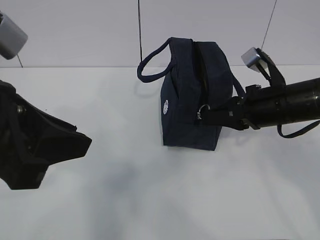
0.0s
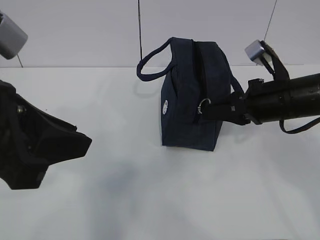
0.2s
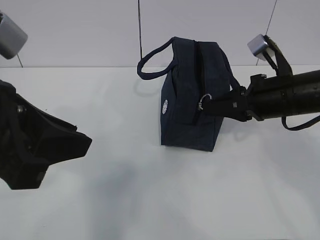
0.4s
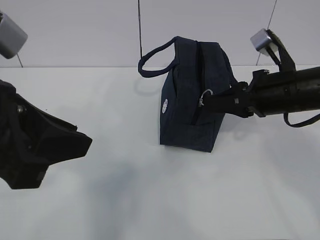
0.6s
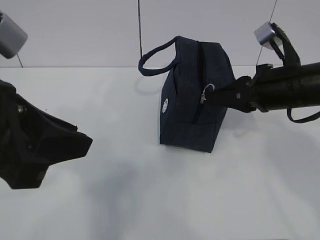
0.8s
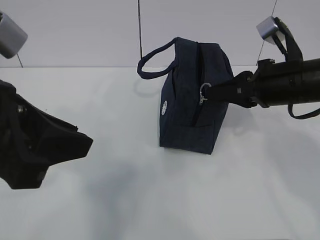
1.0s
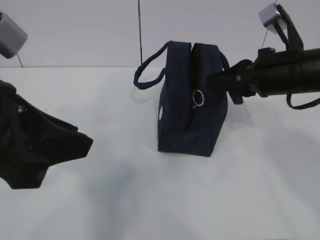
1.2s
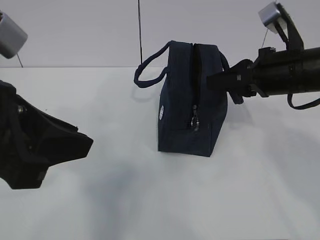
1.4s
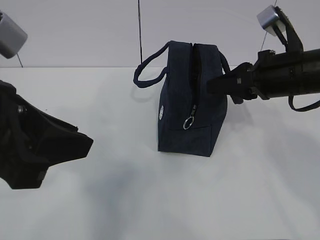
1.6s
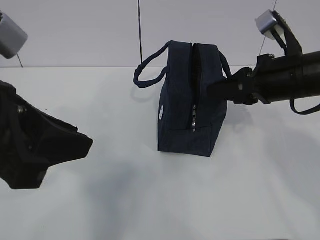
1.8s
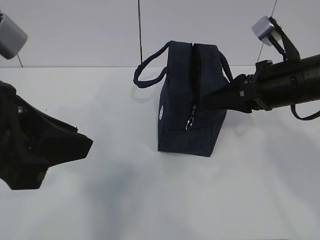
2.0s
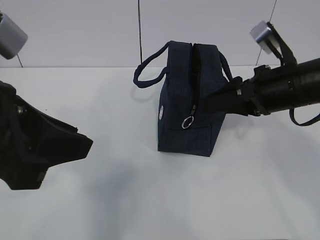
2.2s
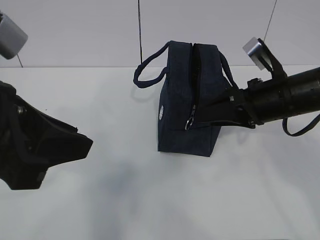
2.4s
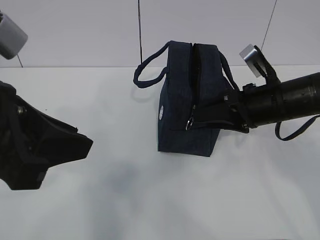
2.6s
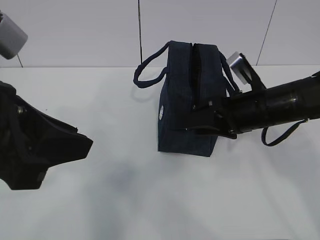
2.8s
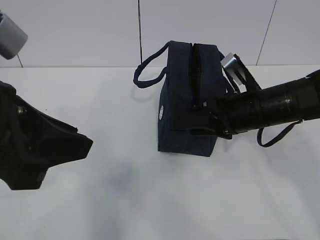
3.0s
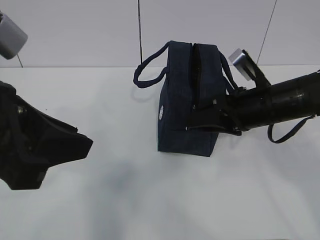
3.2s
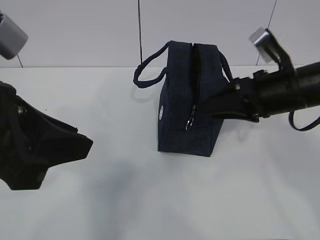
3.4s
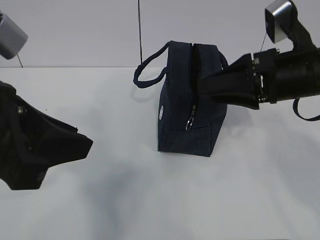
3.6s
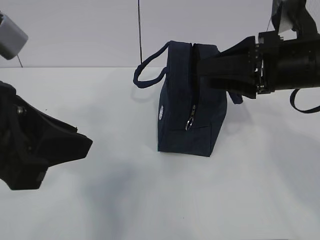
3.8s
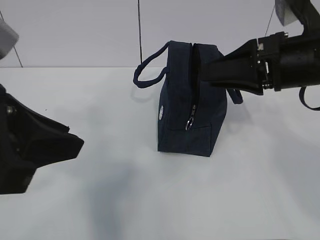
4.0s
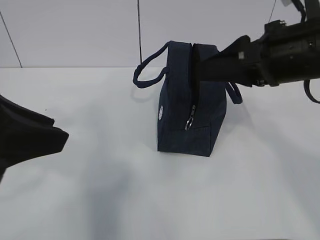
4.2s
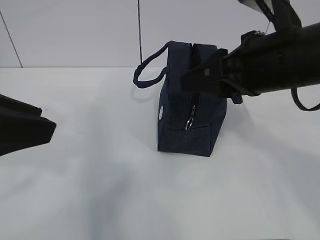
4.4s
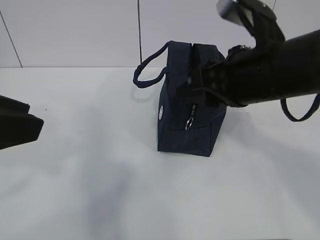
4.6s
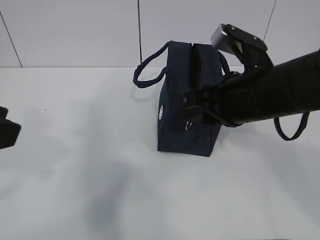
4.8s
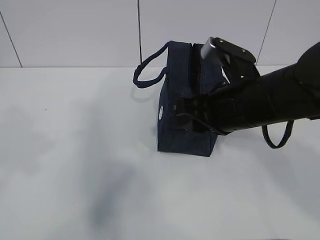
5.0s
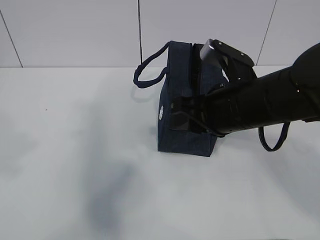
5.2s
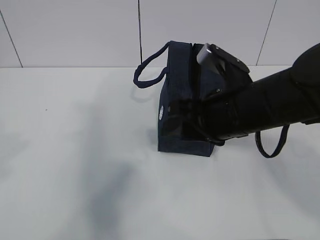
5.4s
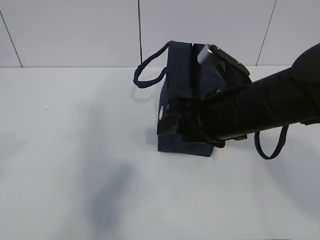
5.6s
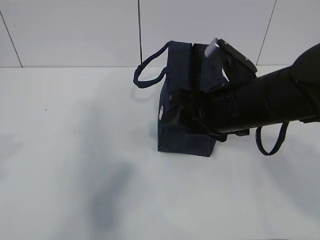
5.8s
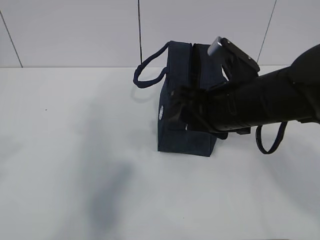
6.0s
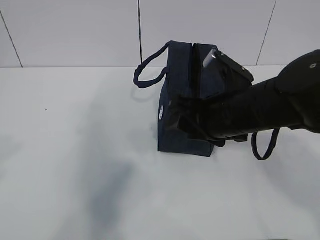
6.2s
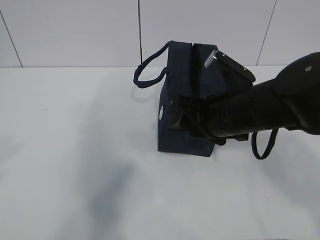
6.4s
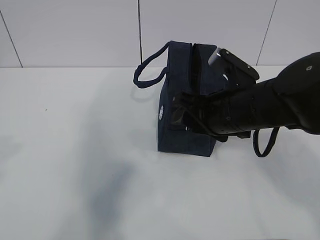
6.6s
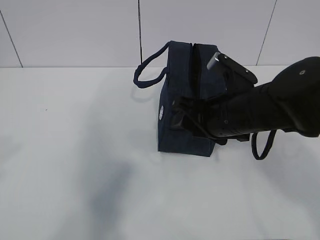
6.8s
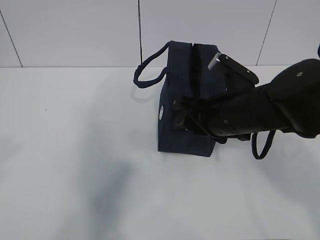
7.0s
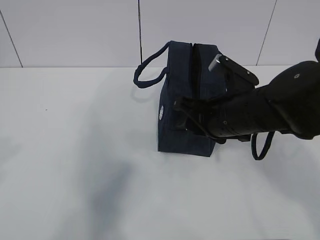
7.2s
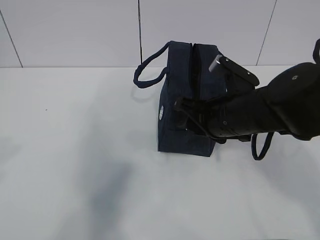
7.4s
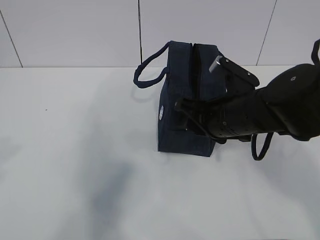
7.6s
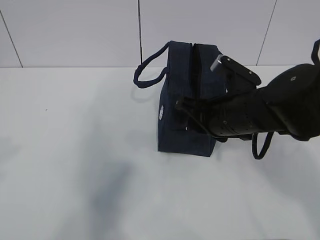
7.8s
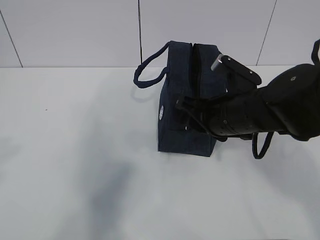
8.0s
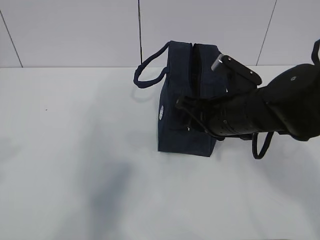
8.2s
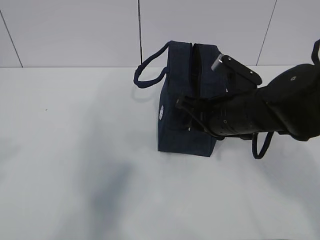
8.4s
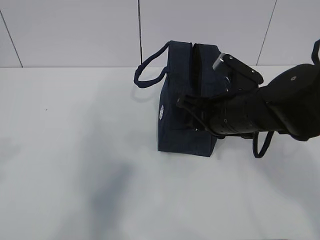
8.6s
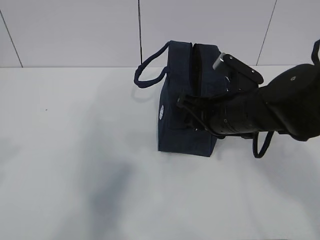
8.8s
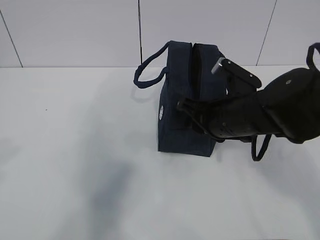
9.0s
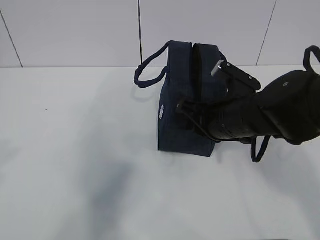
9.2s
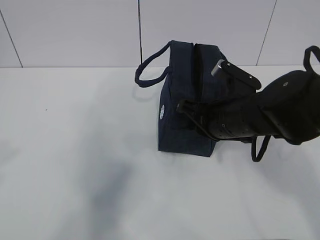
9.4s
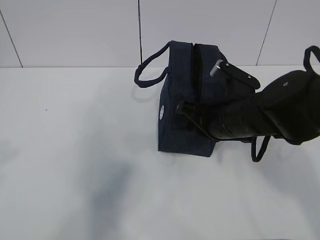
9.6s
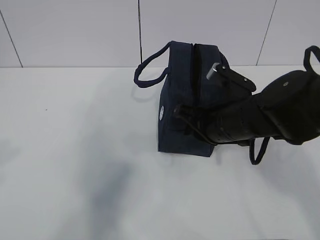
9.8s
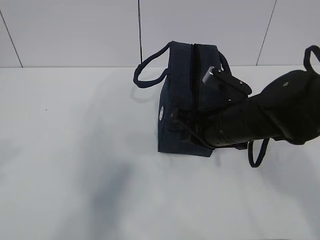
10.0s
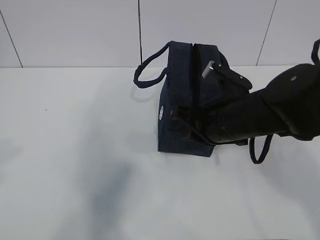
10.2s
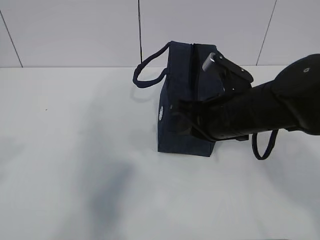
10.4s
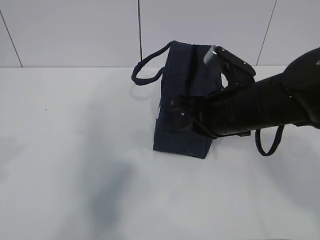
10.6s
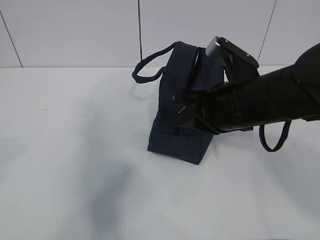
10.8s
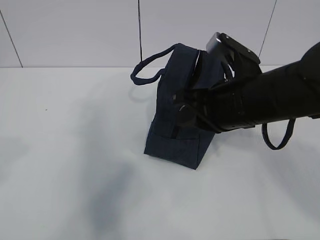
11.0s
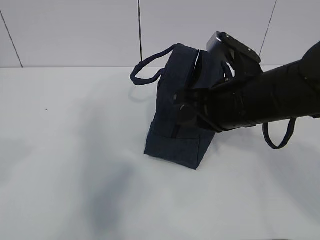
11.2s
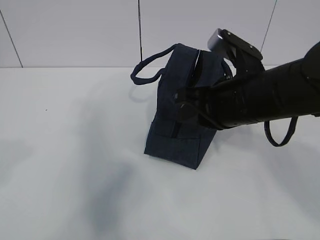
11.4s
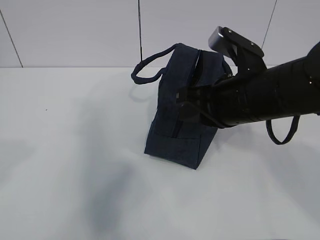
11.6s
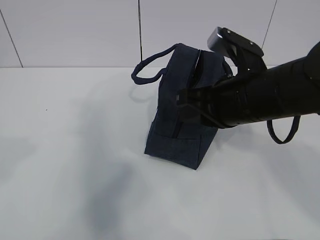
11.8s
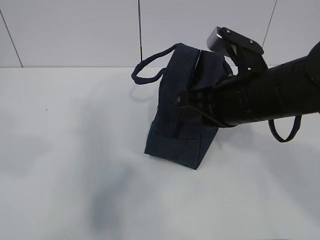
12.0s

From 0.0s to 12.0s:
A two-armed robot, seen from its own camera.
Step, from 0.0s to 8.0s: Grab the lunch bag with your left hand.
Step, from 8.2s to 12.0s: Pull the zipper with your right hand.
From 0.0s to 1.6s: The right gripper moves upward, some 5 cm.
From 1.6s to 3.0s: The right gripper shifts roughly 5 cm downward, and opens its fingers.
From 3.0s to 4.4s: The right gripper moves upward and backward, roughly 15 cm.
From 4.4s to 6.0s: The right gripper heads downward, covering some 5 cm, while the left gripper travels to the left and backward by approximately 10 cm.
From 6.0s to 7.6s: There are only small adjustments of the grippers.
From 7.6s to 9.0s: Neither gripper changes place.
From 9.0s to 10.4s: The right gripper closes up.
From 10.4s to 12.0s: The grippers make only small movements.

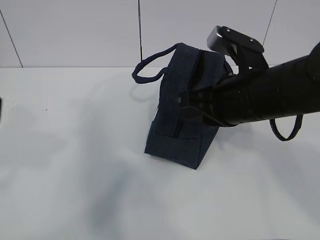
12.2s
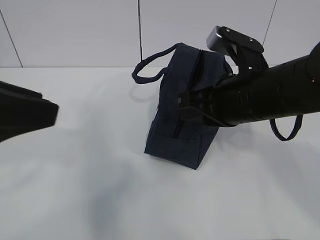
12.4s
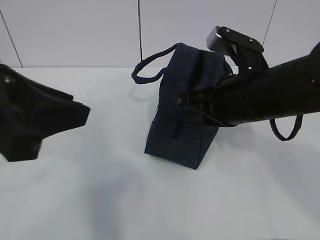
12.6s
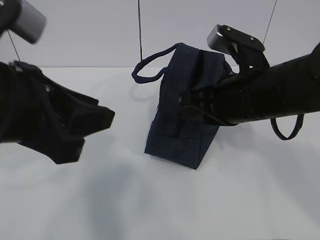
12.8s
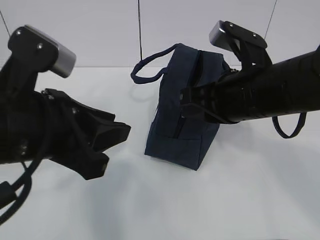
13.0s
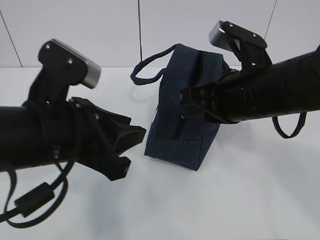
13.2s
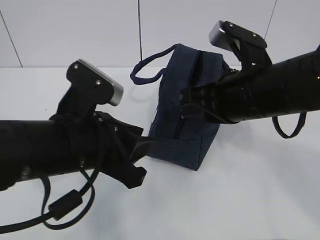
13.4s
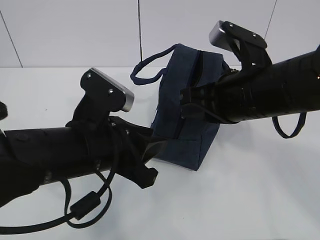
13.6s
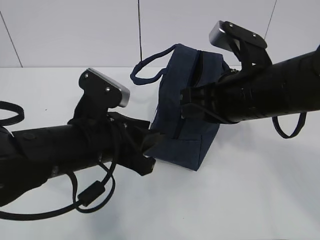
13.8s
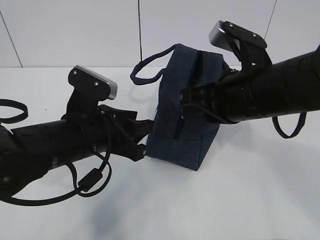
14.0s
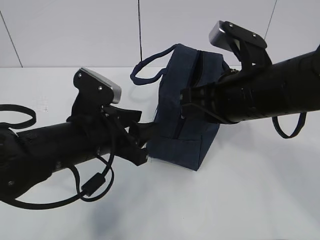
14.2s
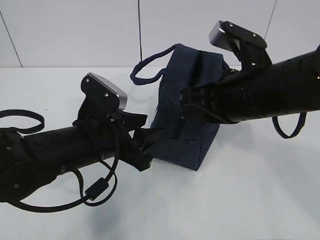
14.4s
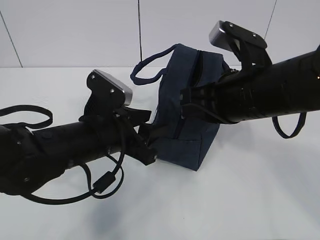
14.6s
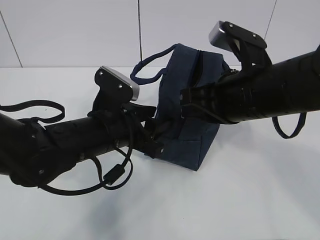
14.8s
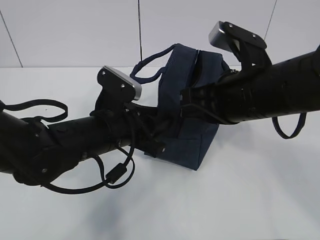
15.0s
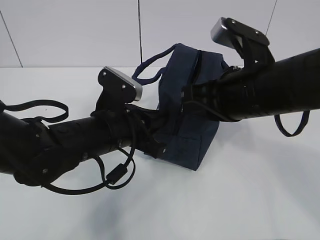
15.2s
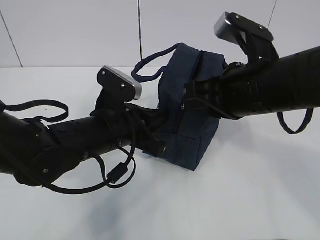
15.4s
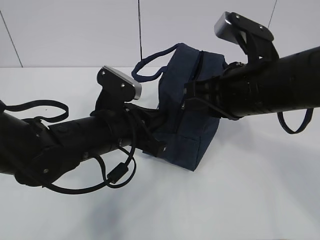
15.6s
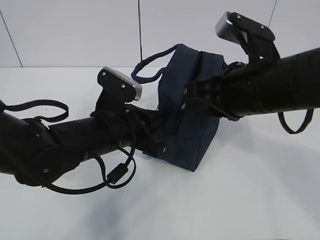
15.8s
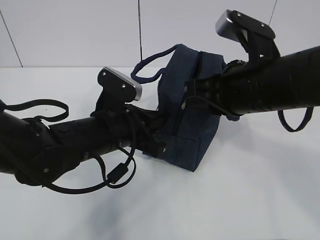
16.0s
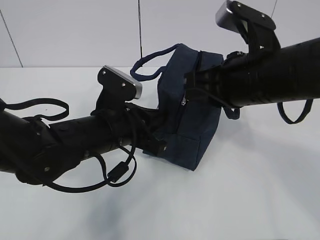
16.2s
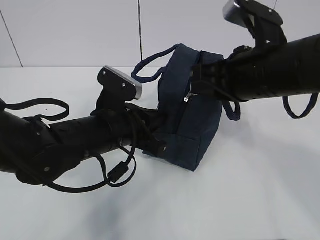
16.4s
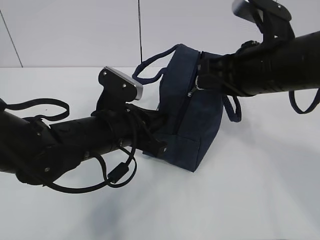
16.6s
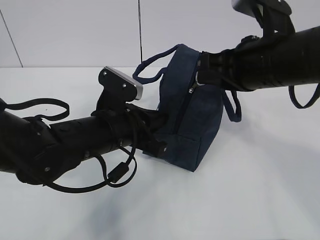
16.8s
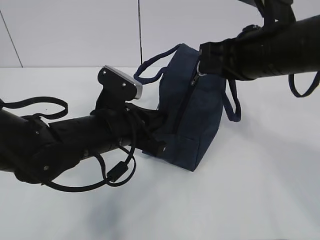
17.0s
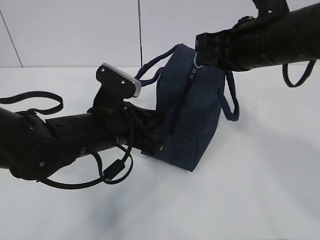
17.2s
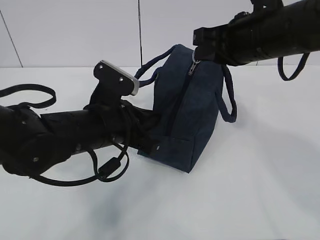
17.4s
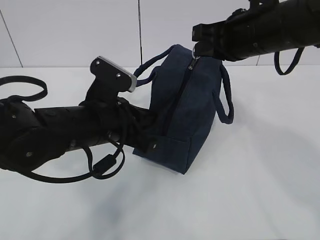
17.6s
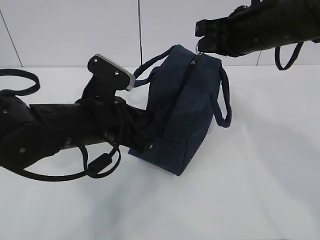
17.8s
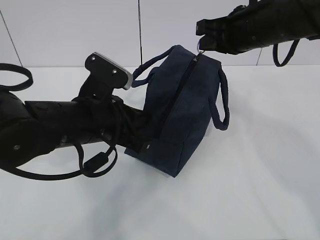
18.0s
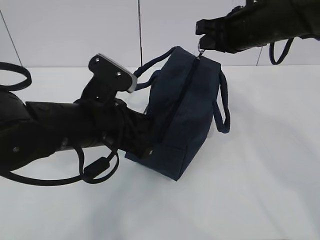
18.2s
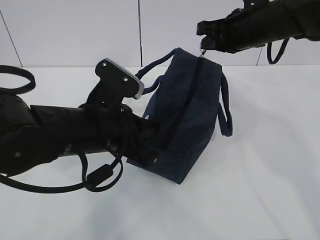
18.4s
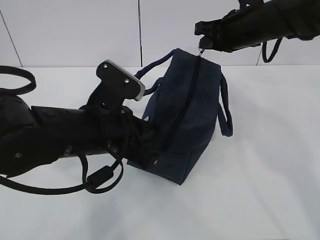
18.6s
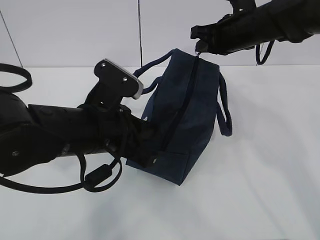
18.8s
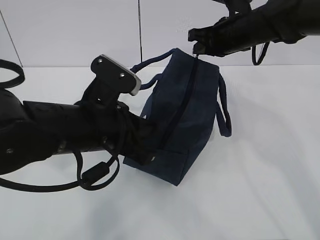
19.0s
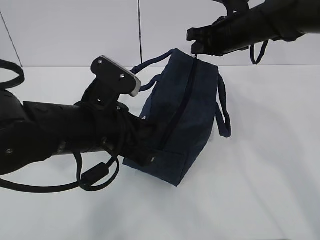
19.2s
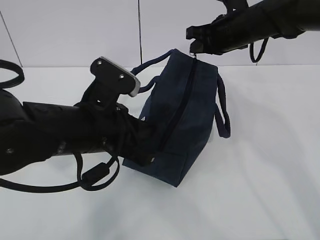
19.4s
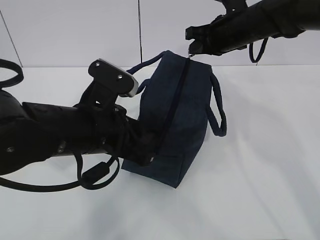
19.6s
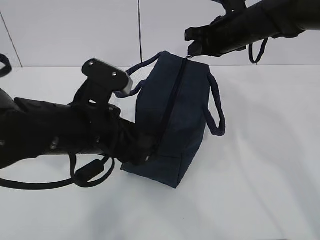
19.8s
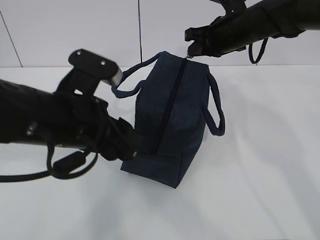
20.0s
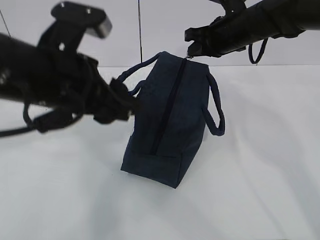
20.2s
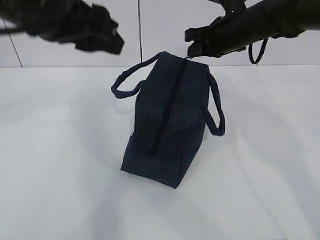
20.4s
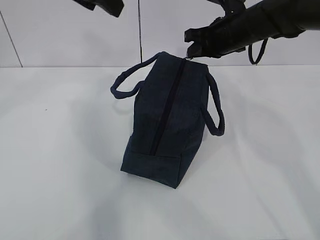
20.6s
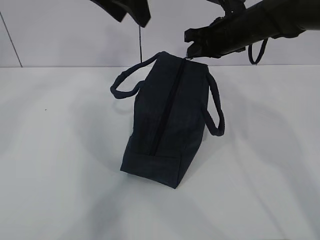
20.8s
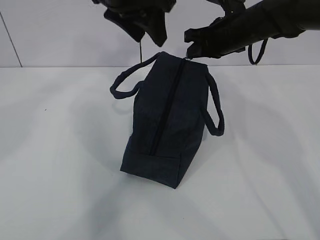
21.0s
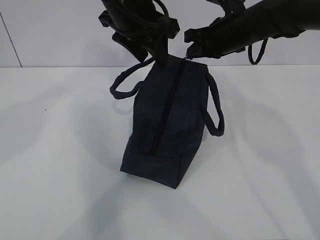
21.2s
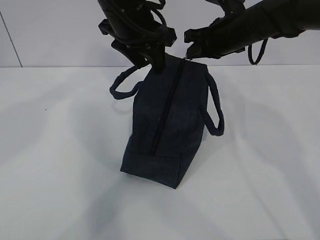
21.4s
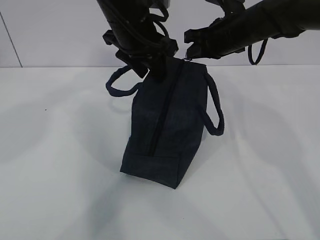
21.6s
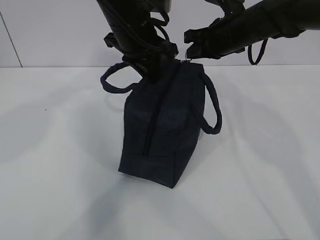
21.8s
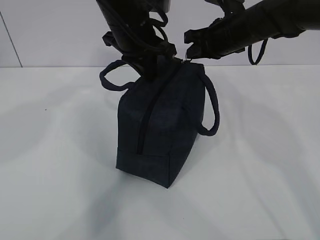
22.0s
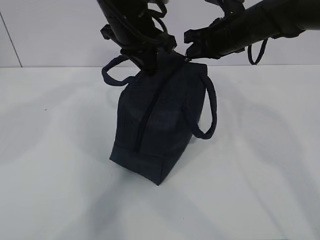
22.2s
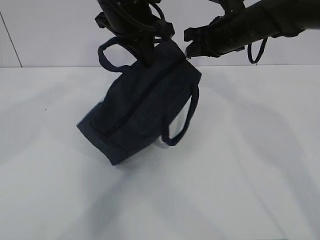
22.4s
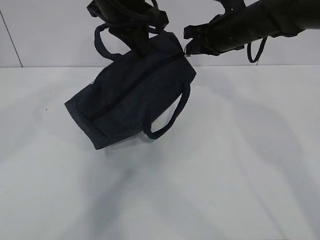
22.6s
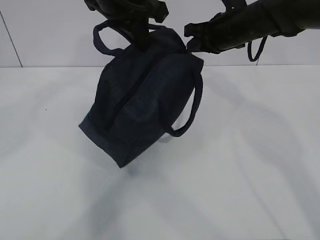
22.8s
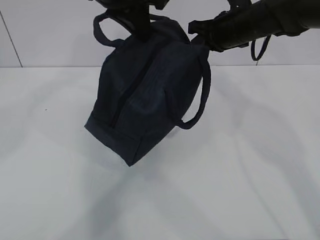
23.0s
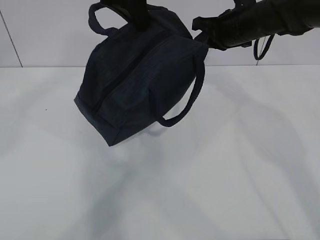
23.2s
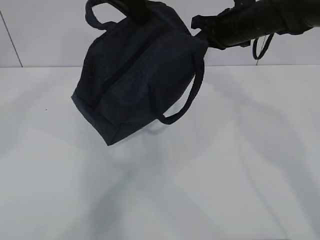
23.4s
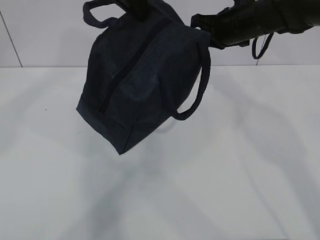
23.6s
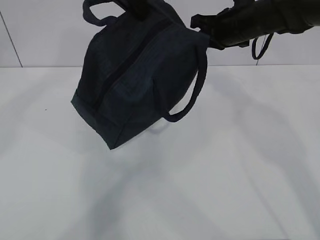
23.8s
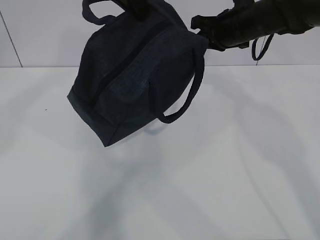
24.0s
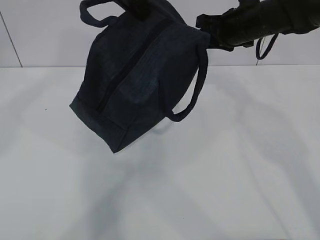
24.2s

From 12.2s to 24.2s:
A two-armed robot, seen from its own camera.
Step, from 12.2s to 12.8s: Grab the lunch bag with your left hand.
From 12.2s to 13.8s: The left gripper goes about 25 cm downward, forward and to the right.
From 13.8s to 15.2s: The left gripper ends up about 5 cm from where it was, and closes up.
From 15.2s to 16.6s: The grippers make only small movements.
From 16.6s to 18.2s: The right gripper heads forward, covering about 10 cm.
From 18.2s to 19.8s: The left gripper opens. Meanwhile the right gripper shifts roughly 5 cm forward.
From 19.8s to 21.2s: The left gripper shifts some 20 cm forward and upward.
From 21.2s to 22.6s: The left gripper closes up.
From 22.6s to 24.2s: The left gripper is displaced upward by some 5 cm. The right gripper opens its fingers.
